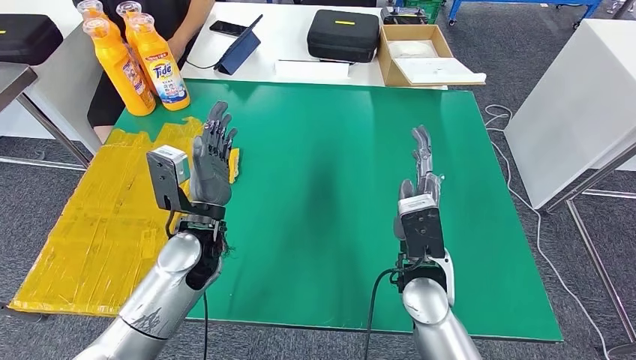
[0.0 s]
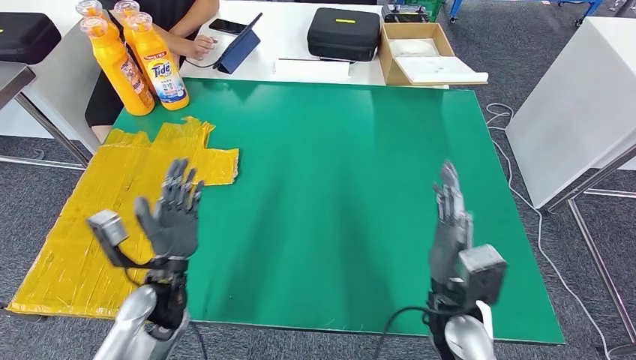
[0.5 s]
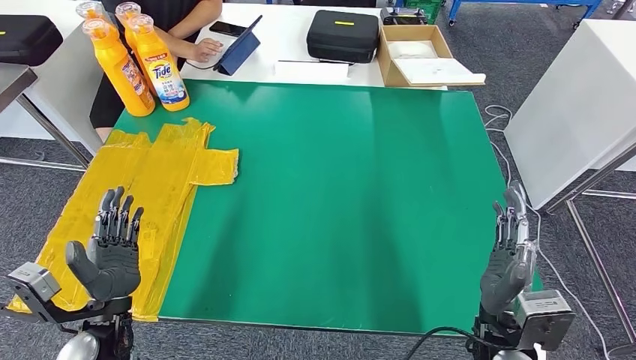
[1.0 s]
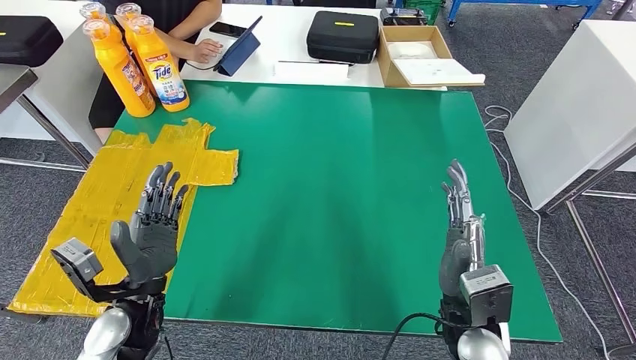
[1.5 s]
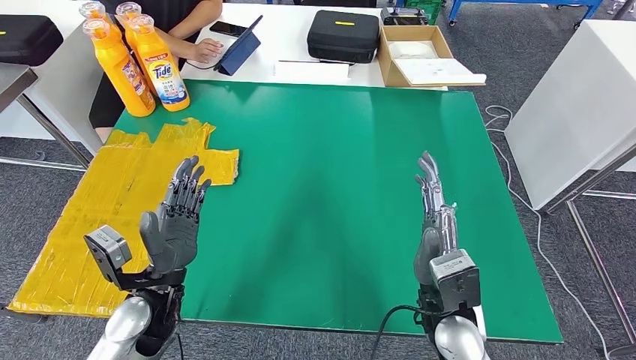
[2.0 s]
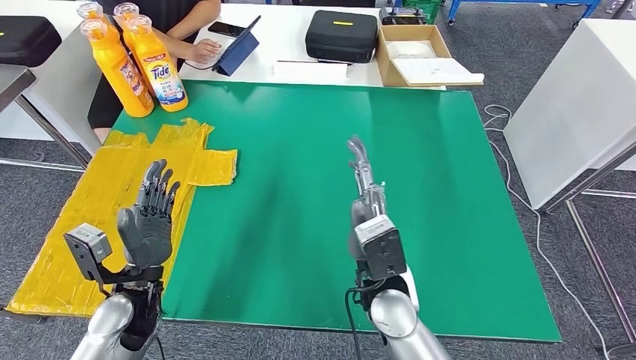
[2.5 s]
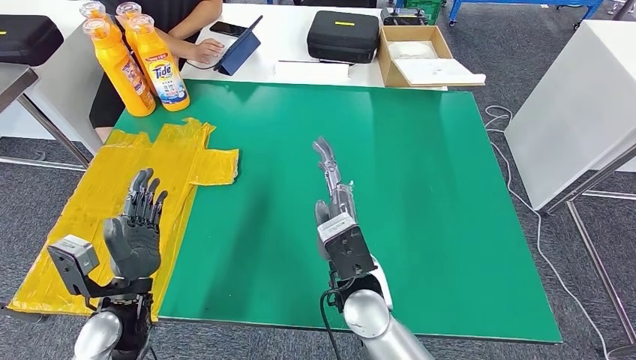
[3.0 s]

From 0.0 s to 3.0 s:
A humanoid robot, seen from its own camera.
Step, from 0.0 s to 3.0 s: Flip the fast-moving consumer goods bottle to the front side.
From 1.5 s to 3.0 s: The right hand travels to the left by approximately 15 cm.

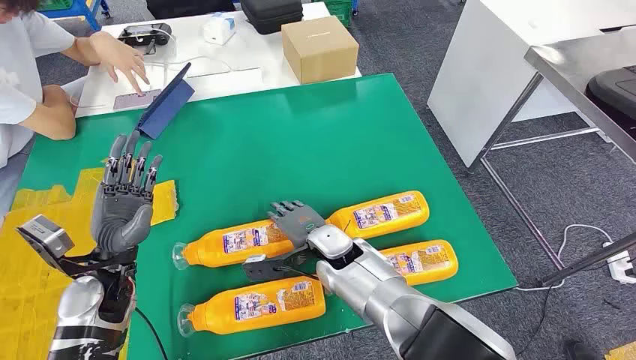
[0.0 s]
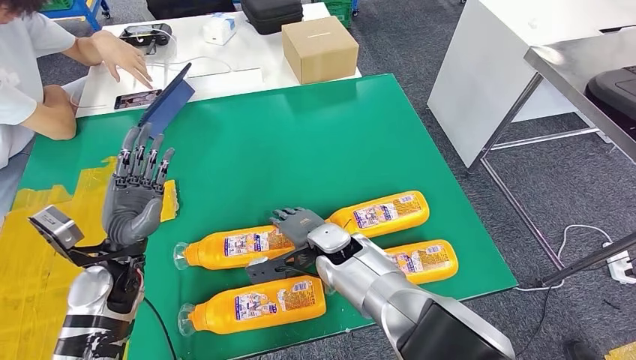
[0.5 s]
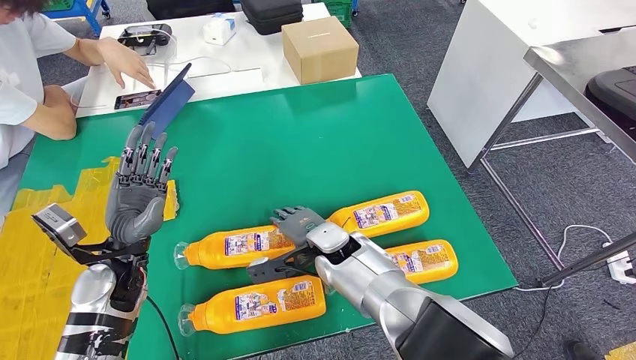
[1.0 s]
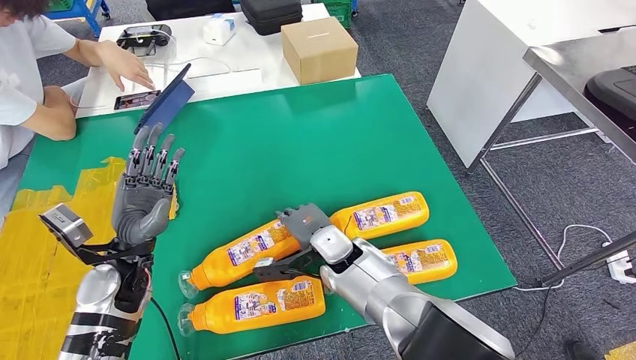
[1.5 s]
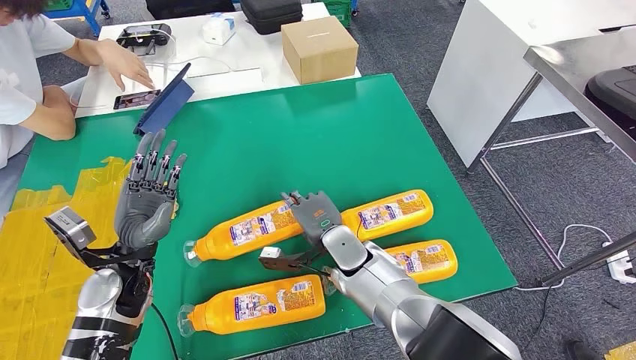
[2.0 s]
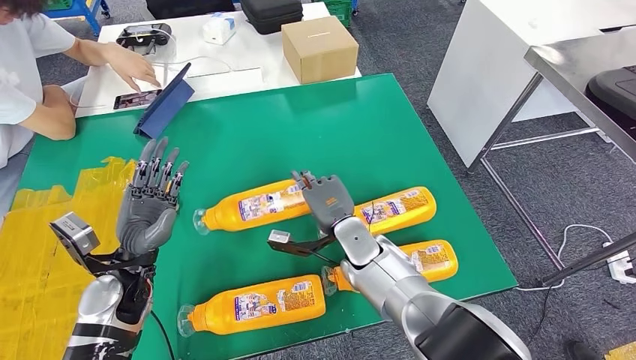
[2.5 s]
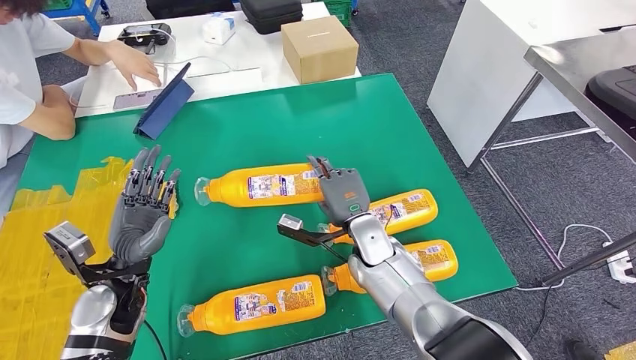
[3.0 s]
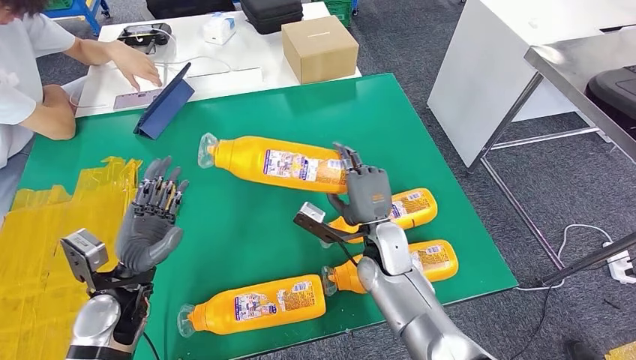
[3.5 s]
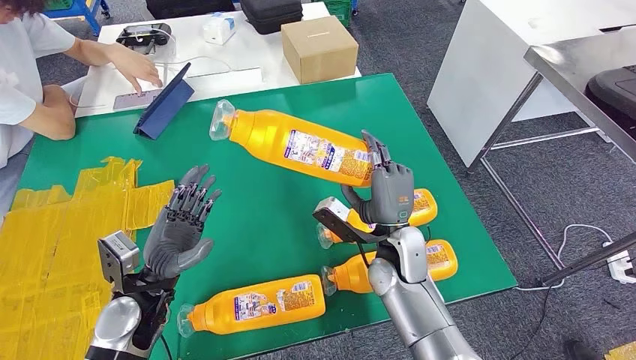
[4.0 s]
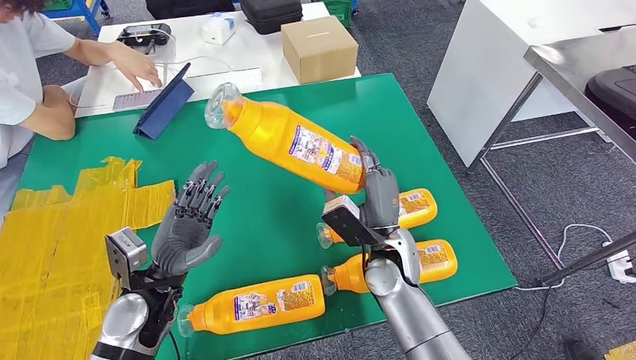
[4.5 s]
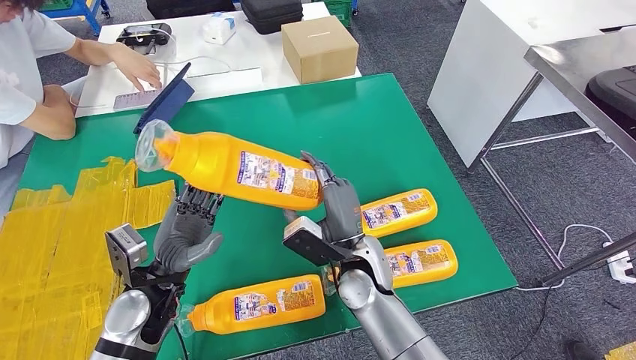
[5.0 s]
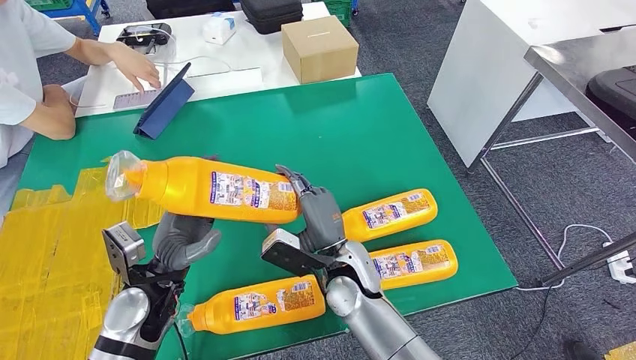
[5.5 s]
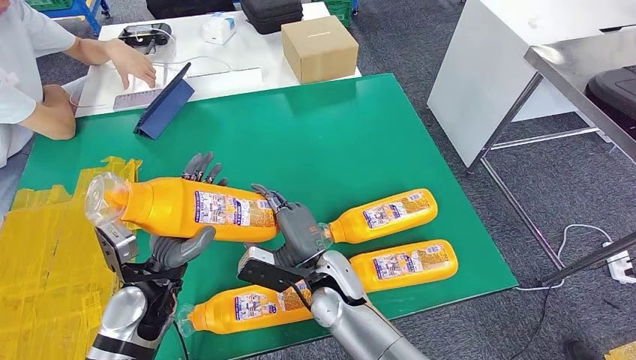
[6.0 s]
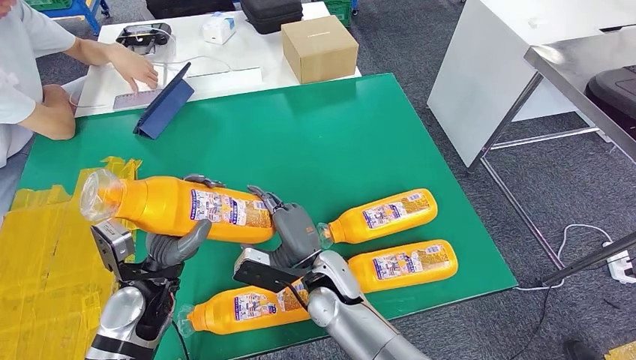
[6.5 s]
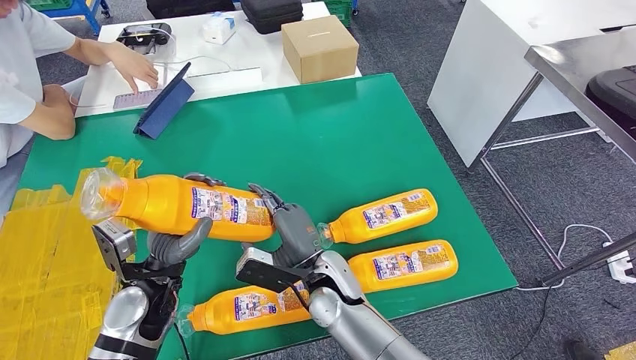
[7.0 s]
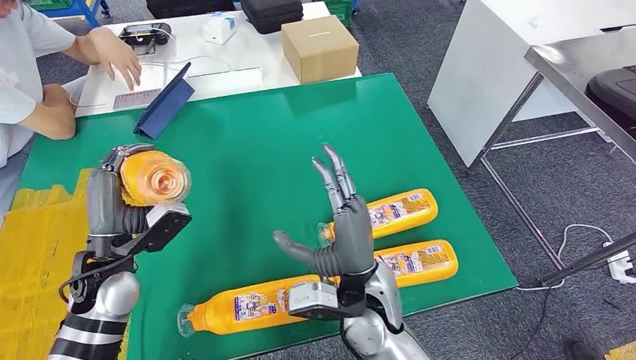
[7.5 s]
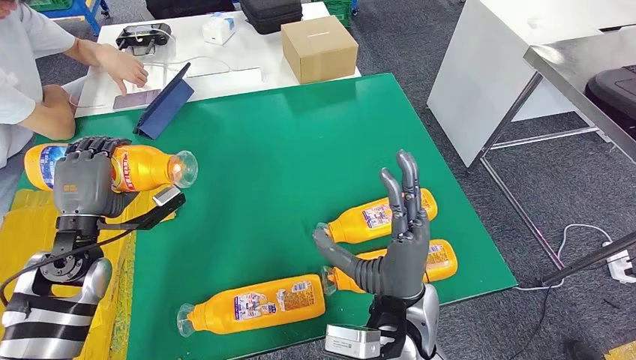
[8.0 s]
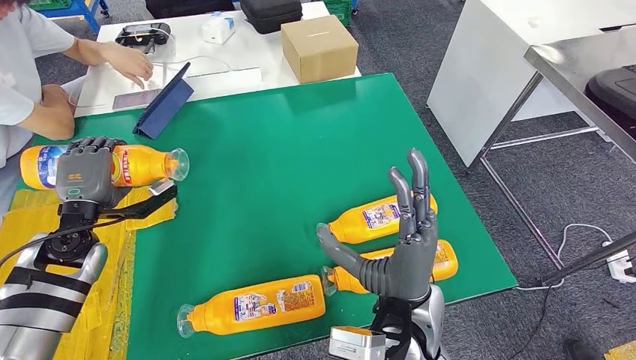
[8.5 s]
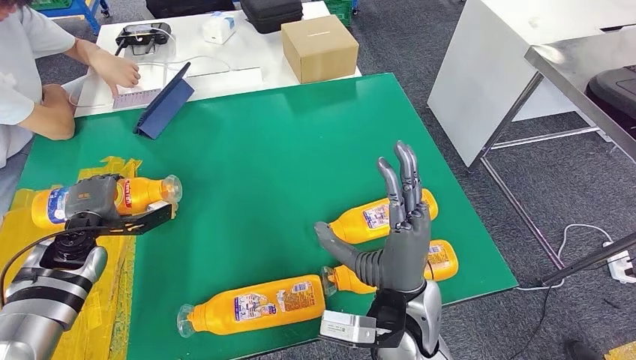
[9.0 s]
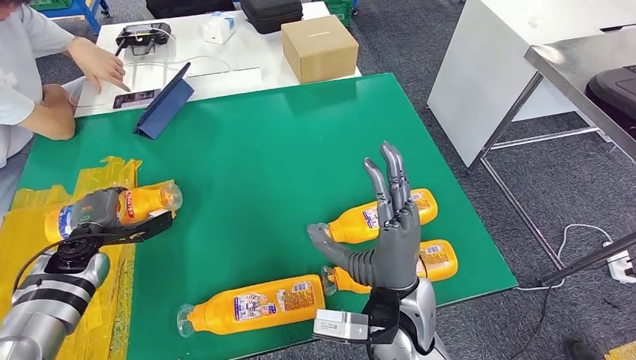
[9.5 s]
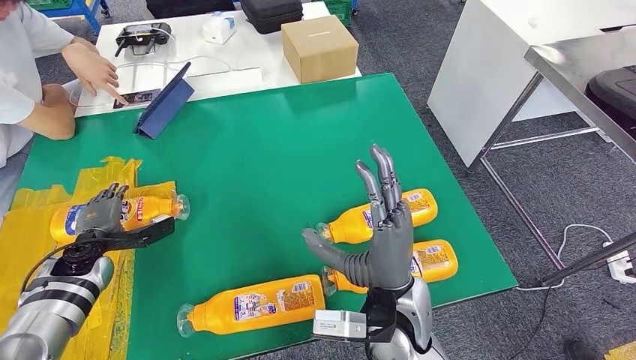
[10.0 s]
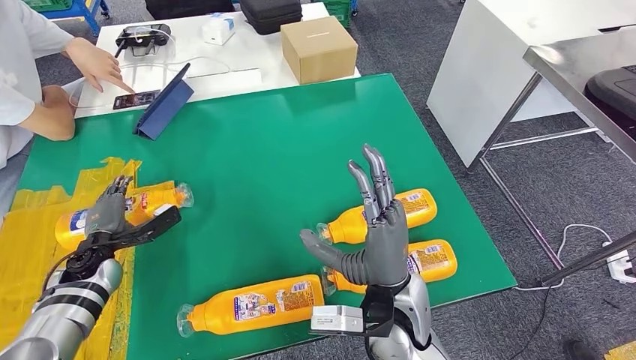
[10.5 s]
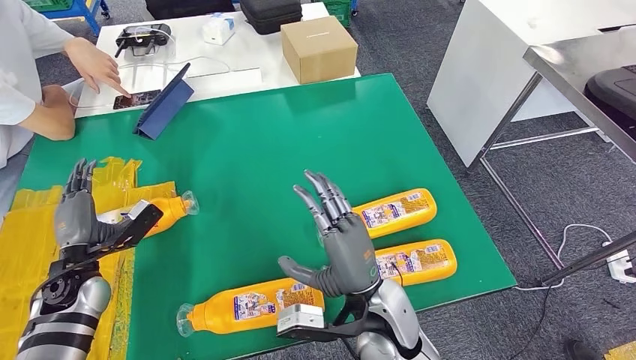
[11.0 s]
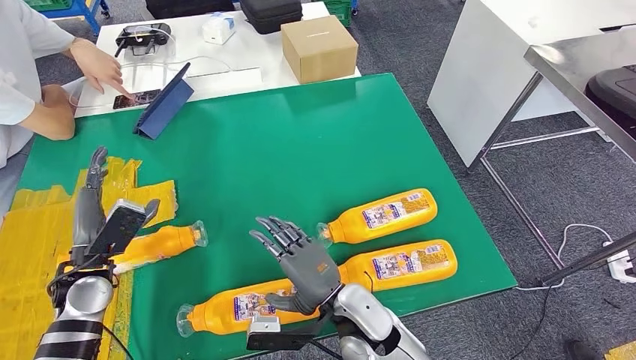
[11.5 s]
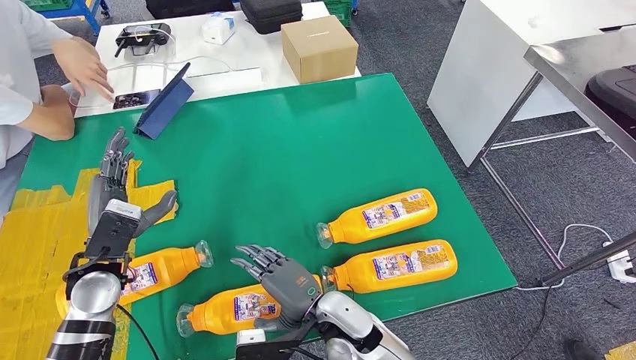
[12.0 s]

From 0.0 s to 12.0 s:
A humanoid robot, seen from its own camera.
Step, from 0.0 s to 2.5 s: Take the fast-moving consumer goods bottle from the table.
Step, from 6.0 s to 8.5 s: Flip the fast-moving consumer goods bottle to the front side.
From 8.0 s to 10.0 s: The left hand is displaced downward and to the left by about 15 cm.
From 10.0 s to 12.0 s: The left hand moves to the right, upward and backward, about 15 cm. The right hand is displaced downward and to the left by approximately 15 cm.

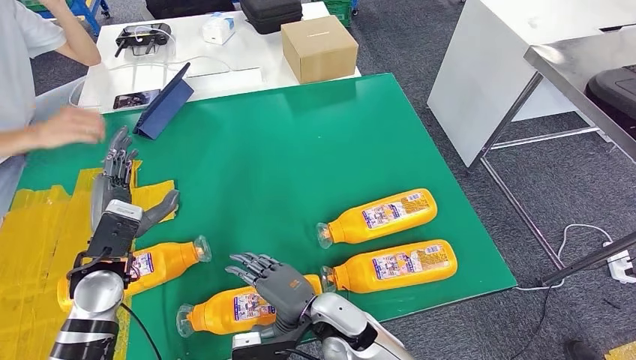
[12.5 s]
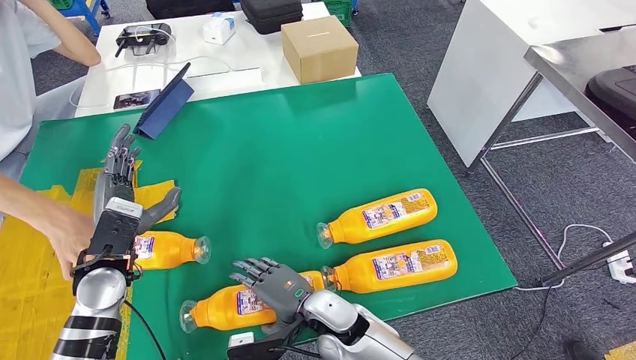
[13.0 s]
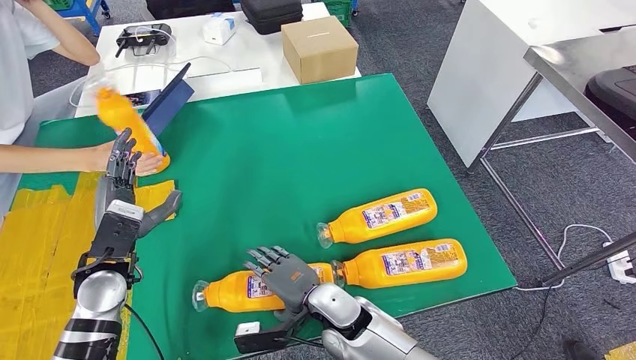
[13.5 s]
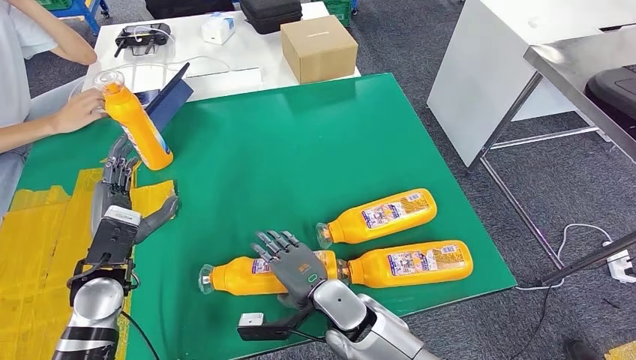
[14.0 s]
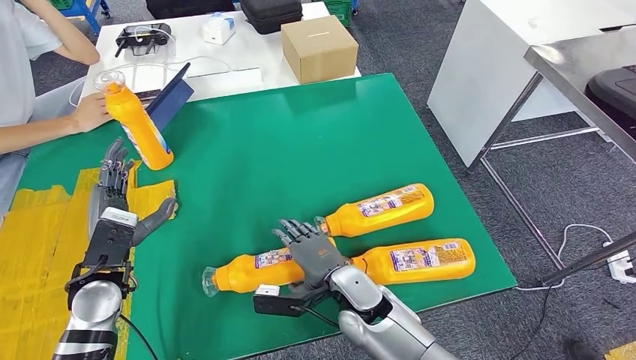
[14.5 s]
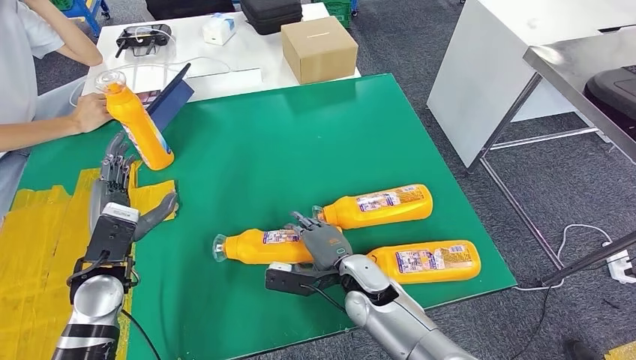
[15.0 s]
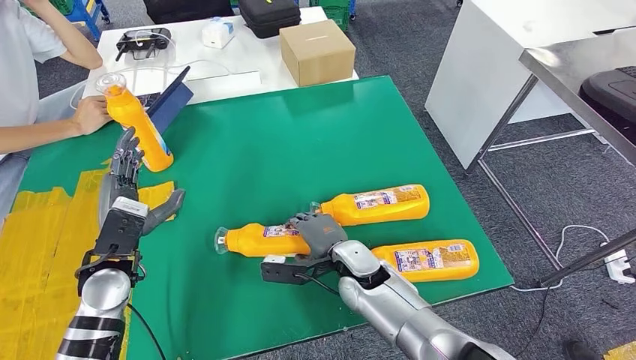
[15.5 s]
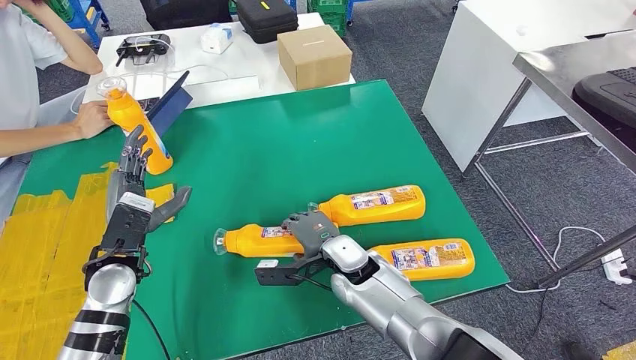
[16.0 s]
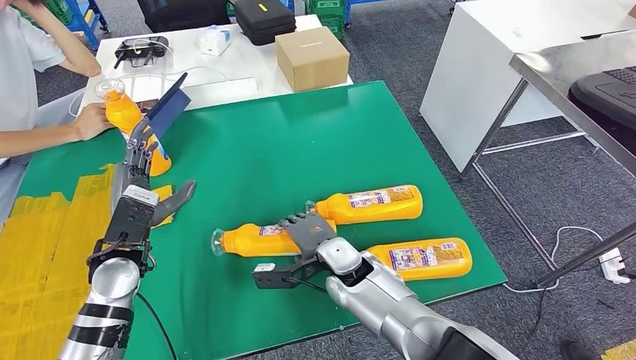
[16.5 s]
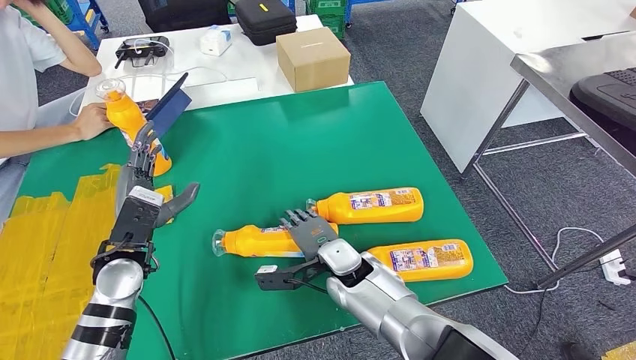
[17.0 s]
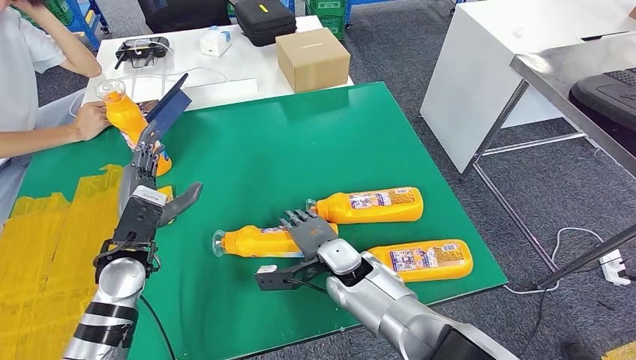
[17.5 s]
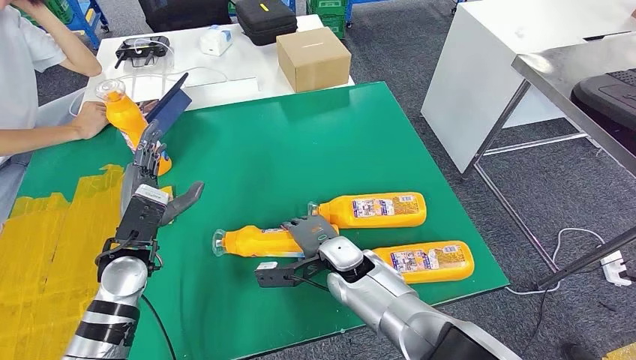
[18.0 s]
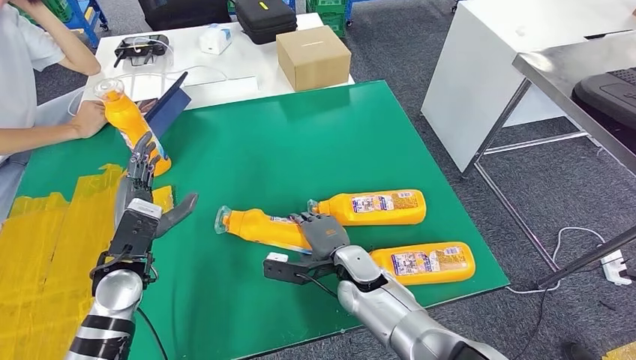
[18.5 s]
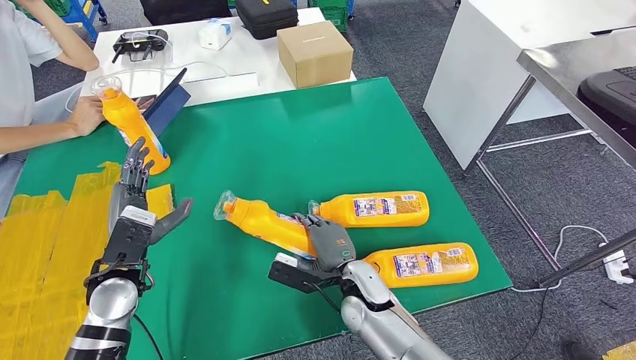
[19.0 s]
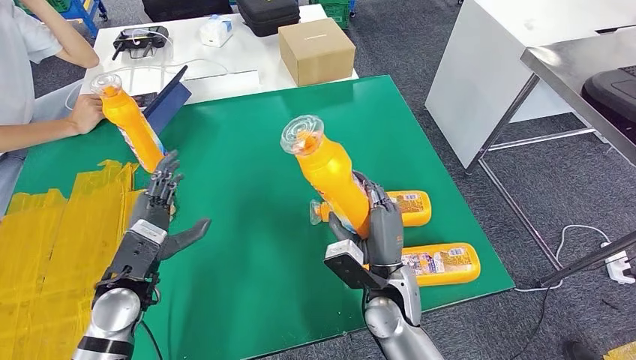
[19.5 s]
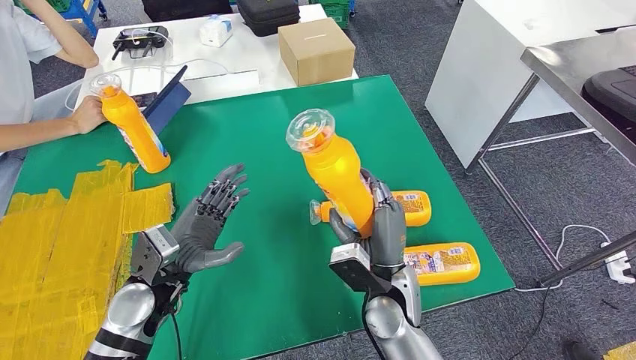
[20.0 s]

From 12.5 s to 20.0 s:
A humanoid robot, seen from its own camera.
Step, from 14.0 s to 19.0 s: Pick up the fast-moving consumer goods bottle from the table.
From 12.5 s to 14.5 s: The right hand shifts by roughly 5 cm.
From 16.5 s to 18.0 s: Both hands stay about where they are.
